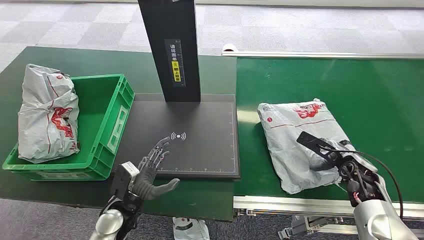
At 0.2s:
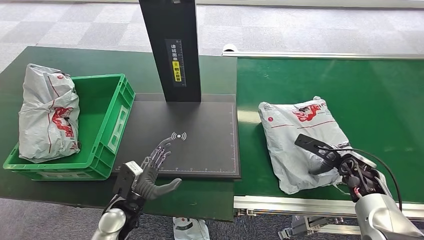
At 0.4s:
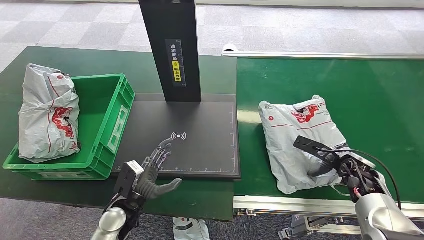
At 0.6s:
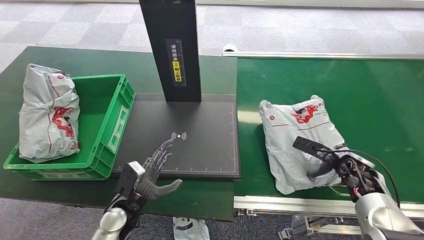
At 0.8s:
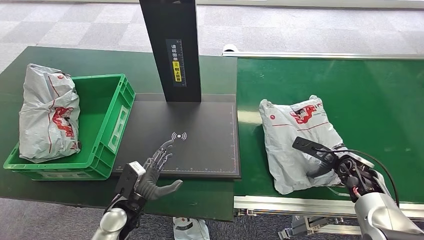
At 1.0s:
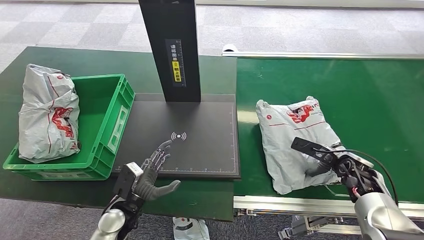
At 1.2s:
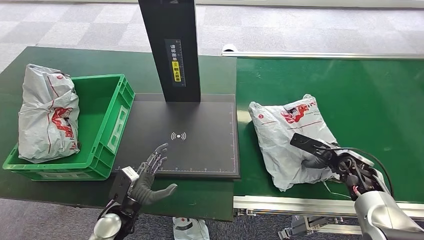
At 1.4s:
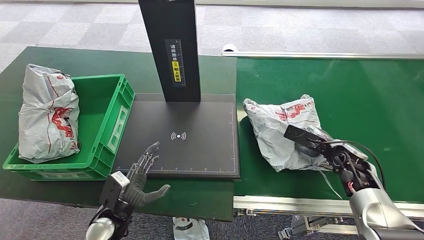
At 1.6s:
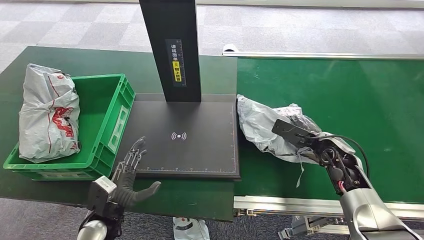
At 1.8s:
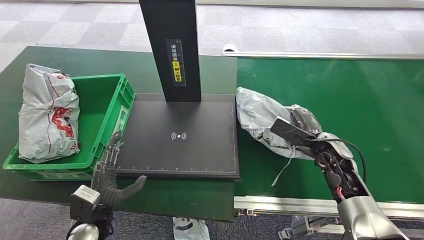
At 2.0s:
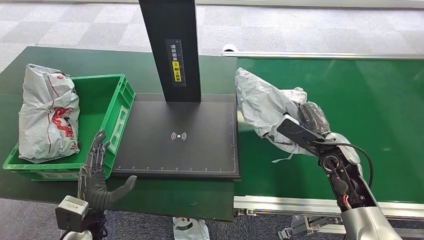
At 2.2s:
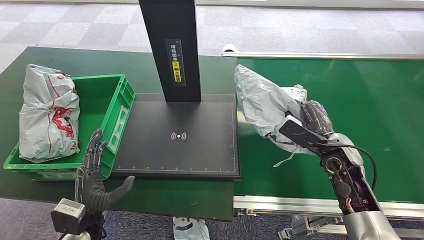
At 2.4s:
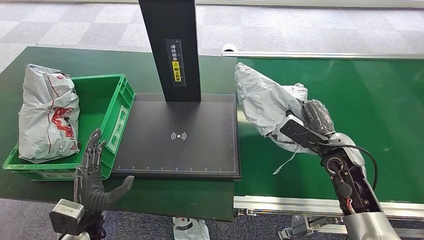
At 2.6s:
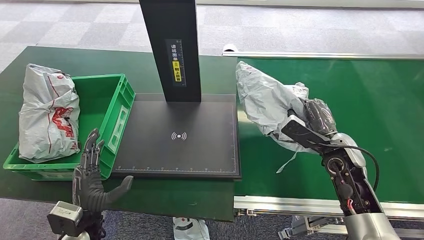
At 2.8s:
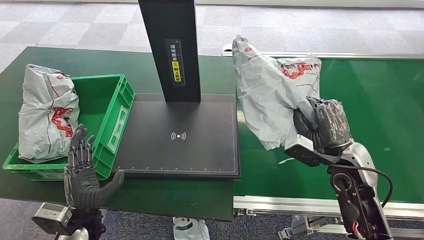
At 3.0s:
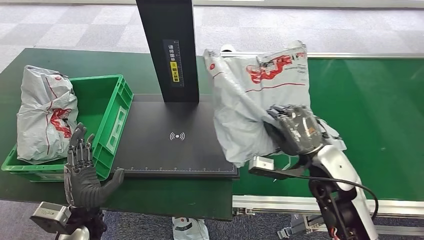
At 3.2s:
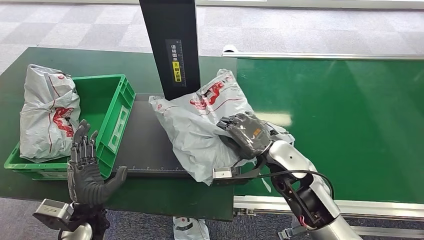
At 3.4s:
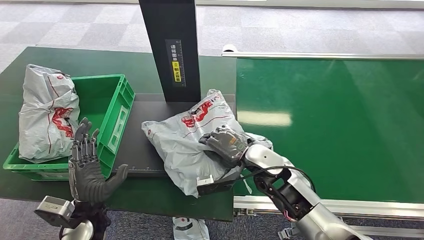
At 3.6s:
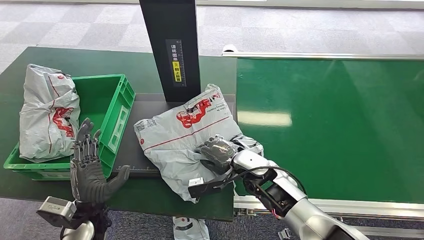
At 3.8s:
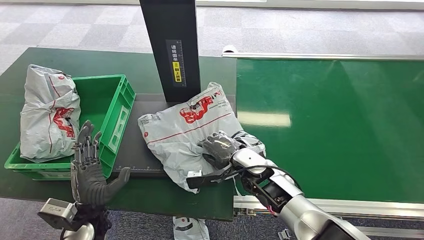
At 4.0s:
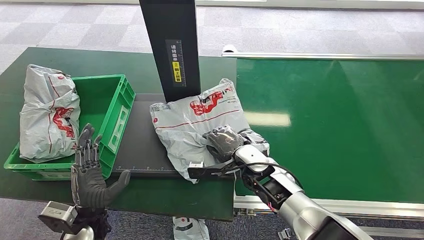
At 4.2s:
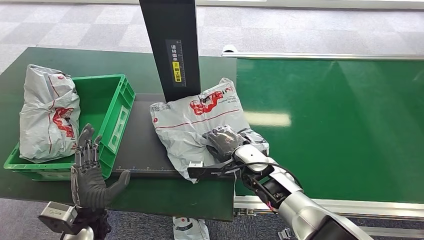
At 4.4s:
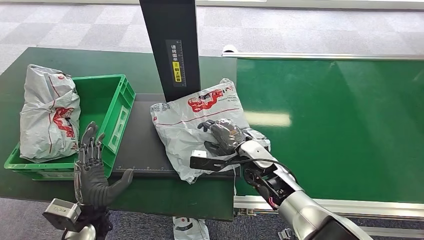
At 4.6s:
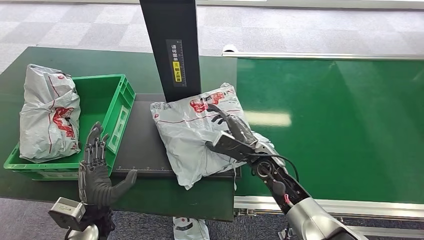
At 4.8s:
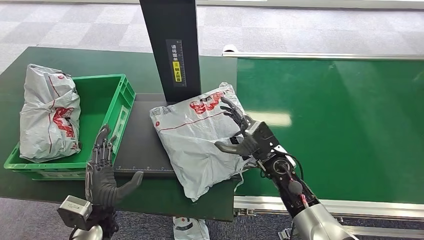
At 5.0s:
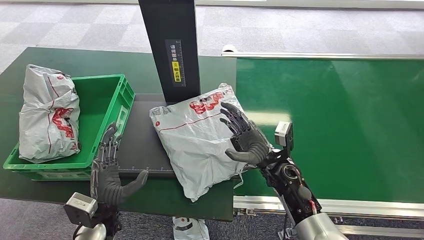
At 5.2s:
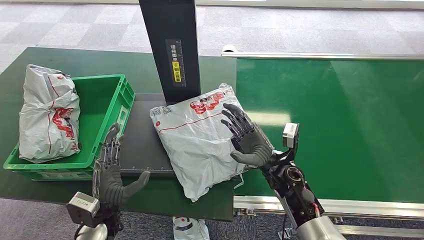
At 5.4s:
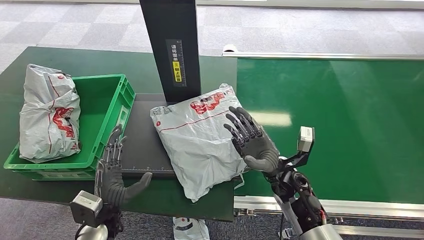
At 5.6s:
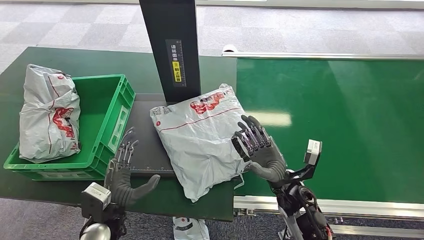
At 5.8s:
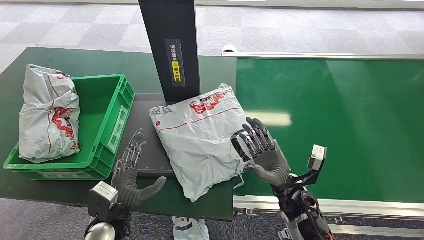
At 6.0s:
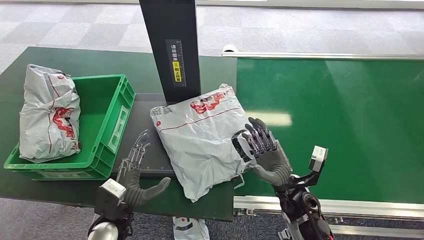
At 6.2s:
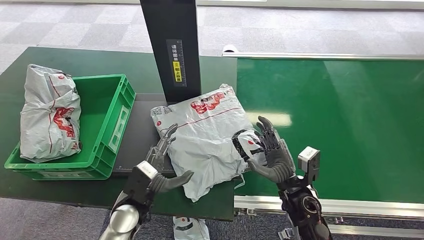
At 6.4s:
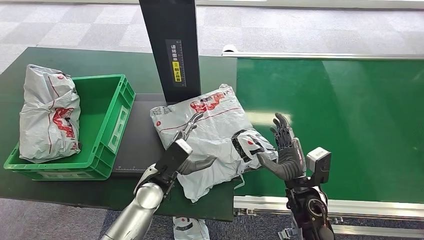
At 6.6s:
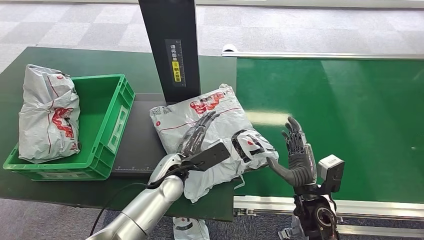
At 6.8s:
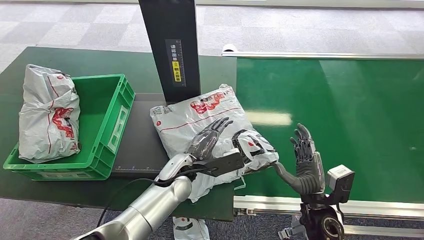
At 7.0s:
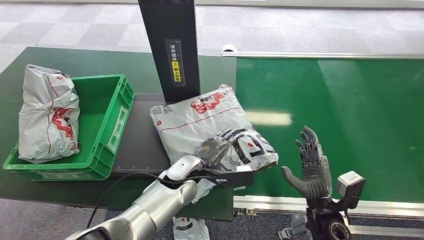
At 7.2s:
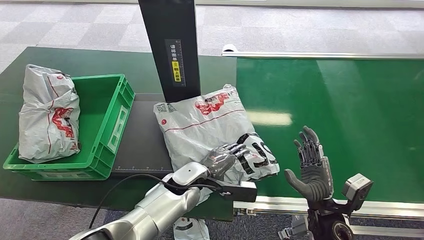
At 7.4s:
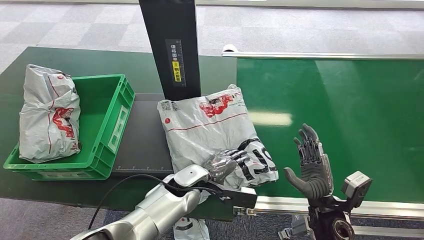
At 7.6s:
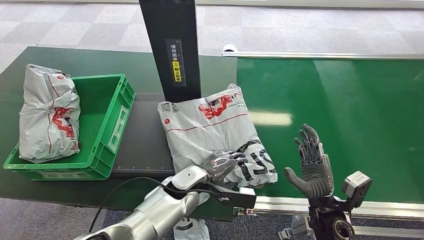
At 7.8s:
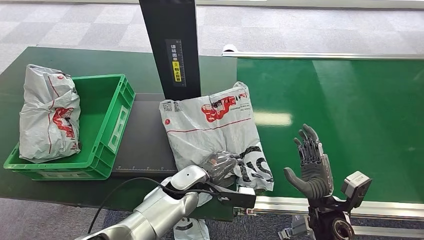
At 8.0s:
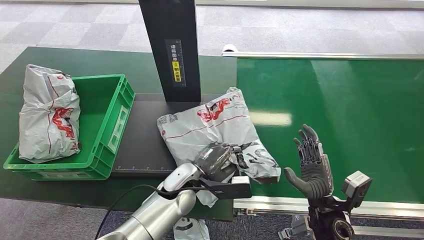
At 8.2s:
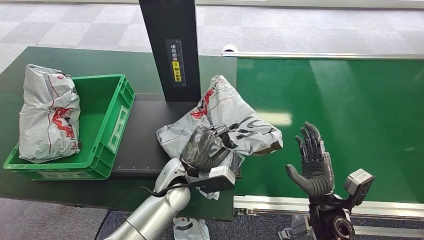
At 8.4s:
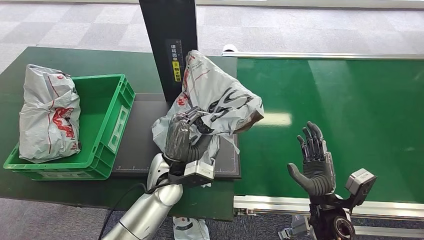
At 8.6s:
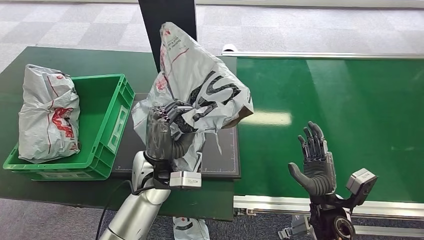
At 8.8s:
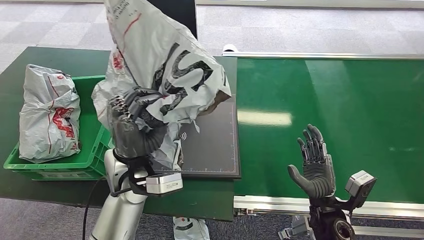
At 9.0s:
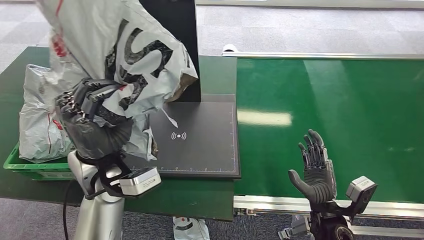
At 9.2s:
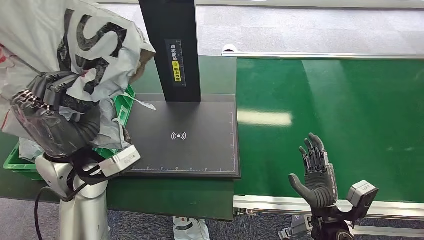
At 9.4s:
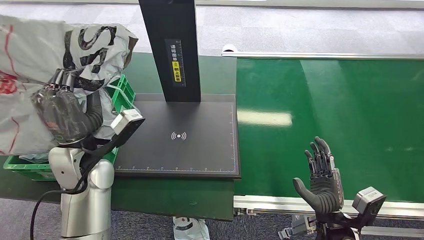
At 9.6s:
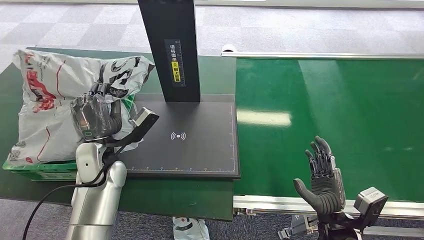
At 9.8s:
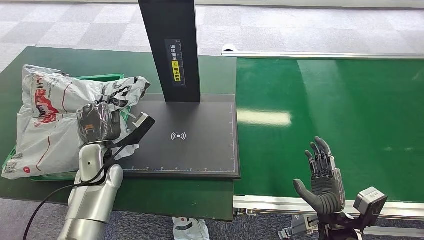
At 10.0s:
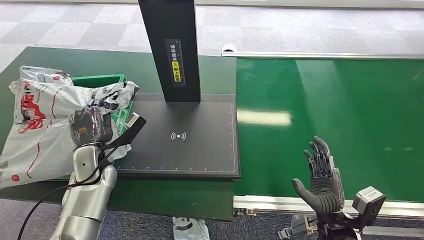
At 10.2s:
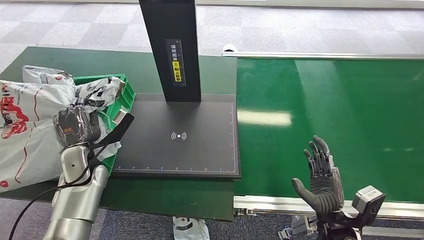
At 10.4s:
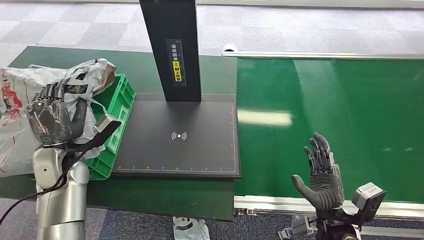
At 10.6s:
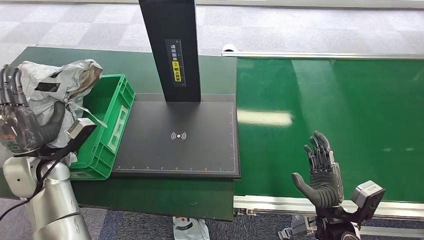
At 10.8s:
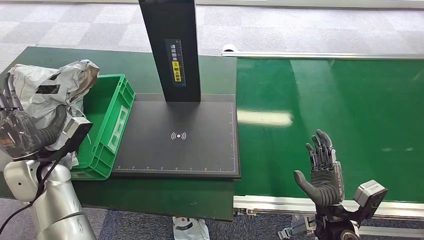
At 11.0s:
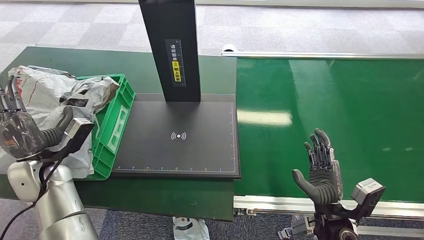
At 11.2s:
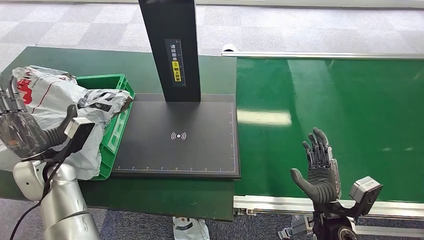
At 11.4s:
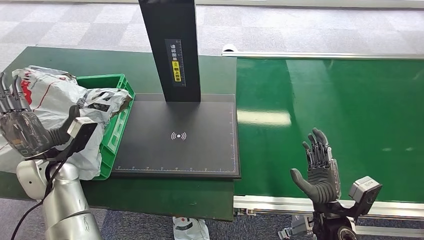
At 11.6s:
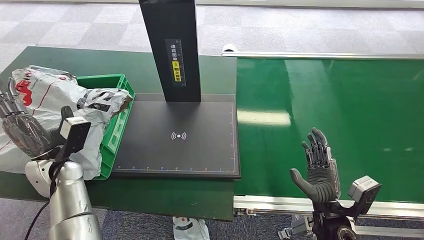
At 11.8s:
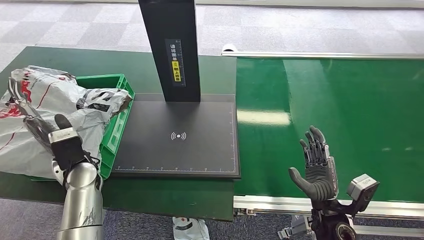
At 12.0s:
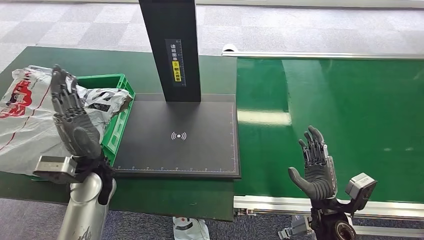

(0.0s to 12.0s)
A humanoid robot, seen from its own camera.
Step, 0.0s - 2.4s: Pick up the package from the conveyor belt.
Step, 2.6s - 5.0s: Place the package onto the inbound machine.
Step, 5.4s - 8.8s: Pick up the package from the inbound machine.
Step, 9.0s - 12.0s: Place the package into the parcel locker.
4.4s - 6.0s: The right hand shifts about 10 cm backward and to the right, while the left hand shifts by some 5 cm.
6.0s - 7.6s: The right hand goes roughly 5 cm to the right, while the left hand heads to the right and forward, covering some 20 cm.
10.4s - 12.0s: The left hand shifts roughly 10 cm to the right.

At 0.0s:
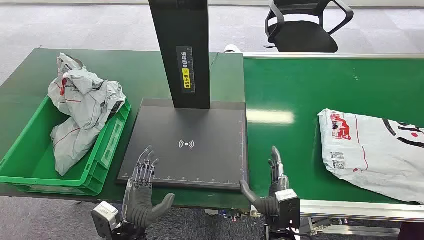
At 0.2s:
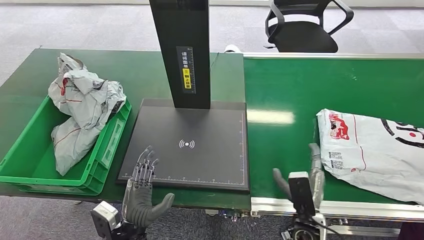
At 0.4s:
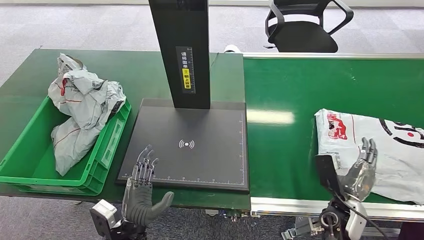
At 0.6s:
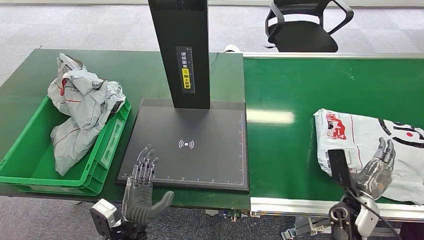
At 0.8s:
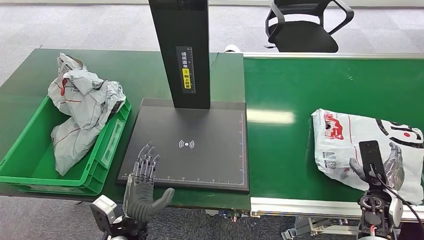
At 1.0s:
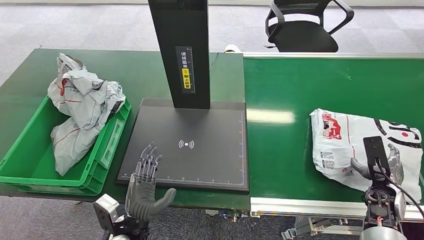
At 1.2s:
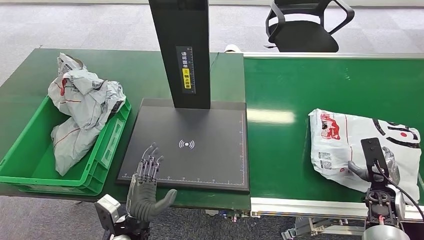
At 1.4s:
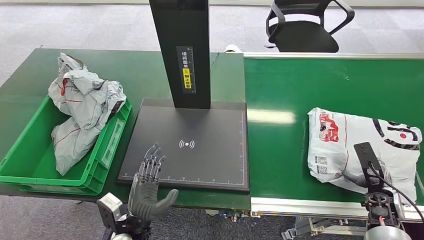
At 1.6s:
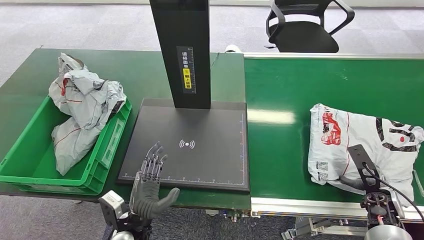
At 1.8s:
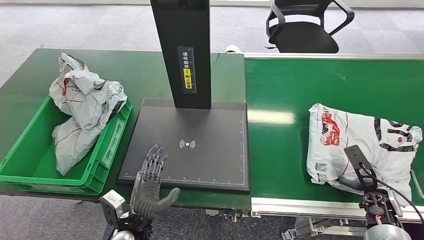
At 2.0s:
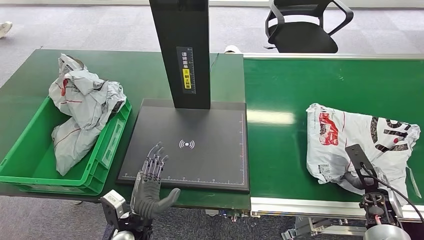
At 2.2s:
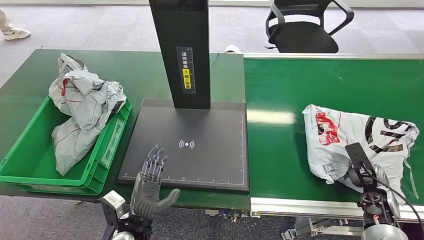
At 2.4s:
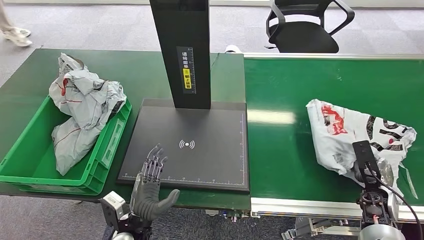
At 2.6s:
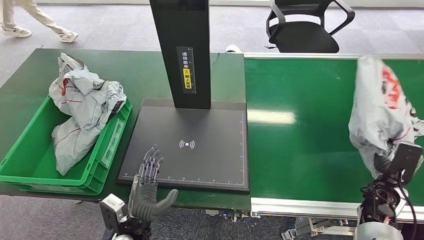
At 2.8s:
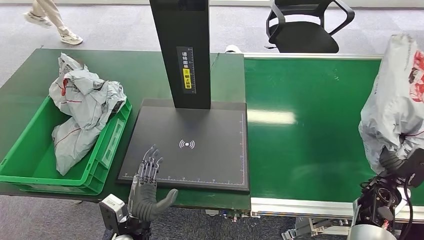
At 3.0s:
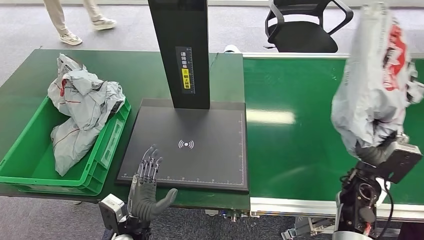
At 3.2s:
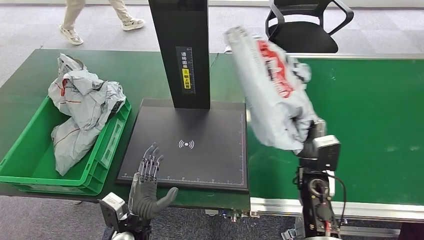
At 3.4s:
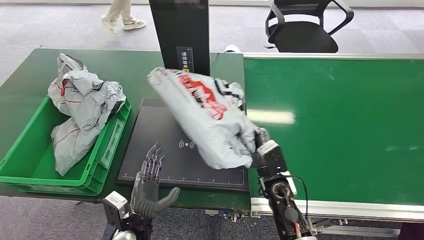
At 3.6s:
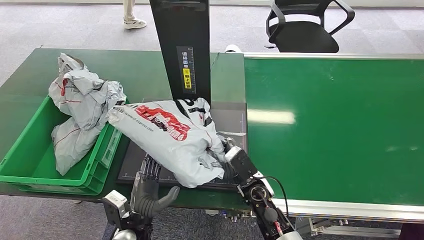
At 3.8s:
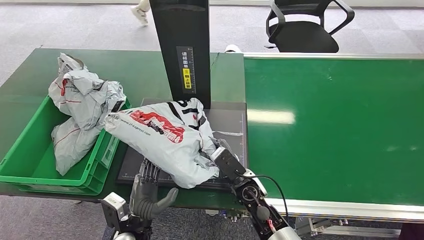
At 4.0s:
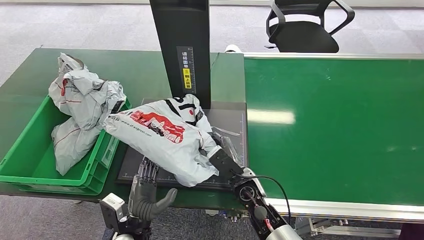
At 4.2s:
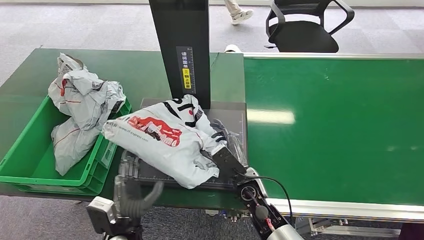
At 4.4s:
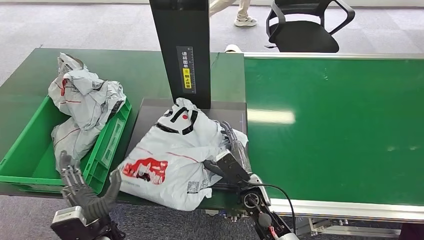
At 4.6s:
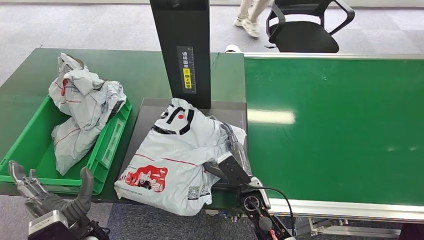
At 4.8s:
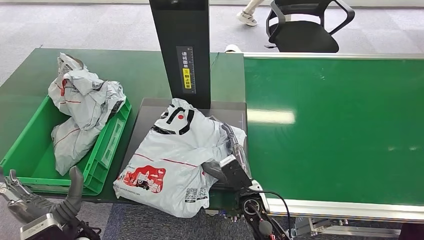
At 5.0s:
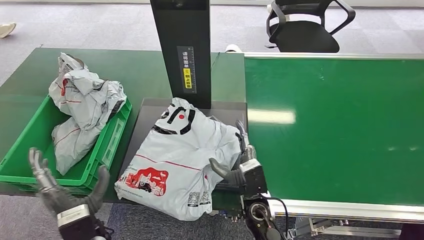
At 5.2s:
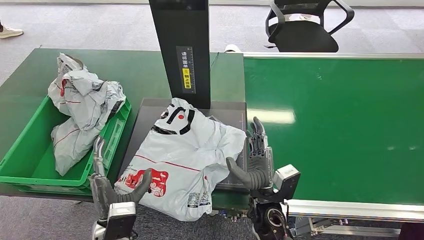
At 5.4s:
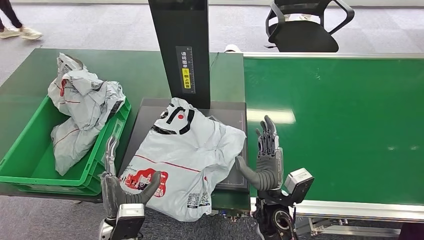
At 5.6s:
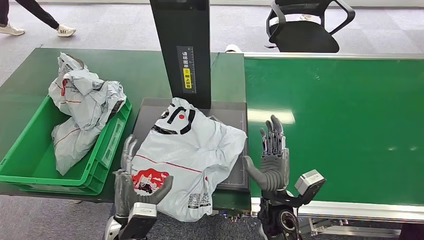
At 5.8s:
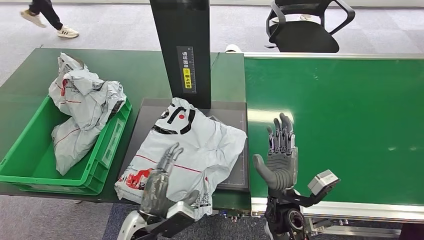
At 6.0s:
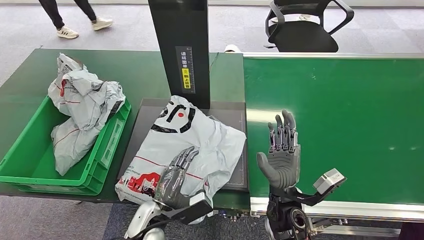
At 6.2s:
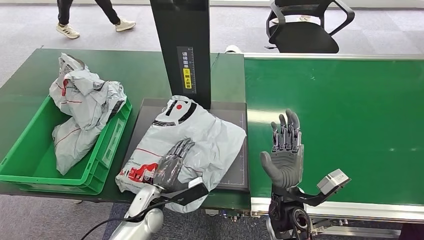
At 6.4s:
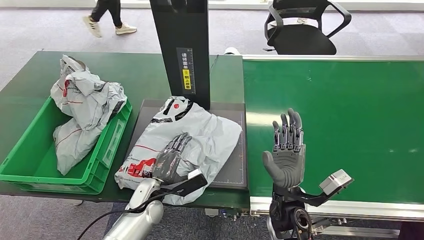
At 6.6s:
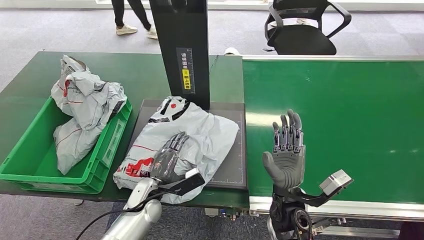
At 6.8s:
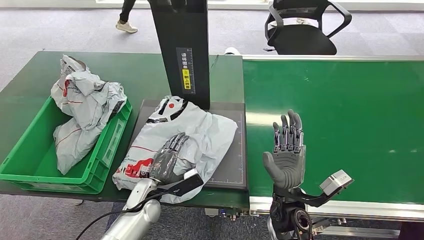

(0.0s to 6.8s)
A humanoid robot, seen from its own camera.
Step, 0.0s - 3.0s: Pick up the package from the conveyor belt.
Step, 3.2s - 5.0s: Place the package onto the inbound machine.
1.4s - 2.8s: The right hand changes place by about 5 cm.
4.0s - 5.4s: The right hand moves backward, approximately 5 cm; the left hand travels to the left and back again, some 10 cm each way.
